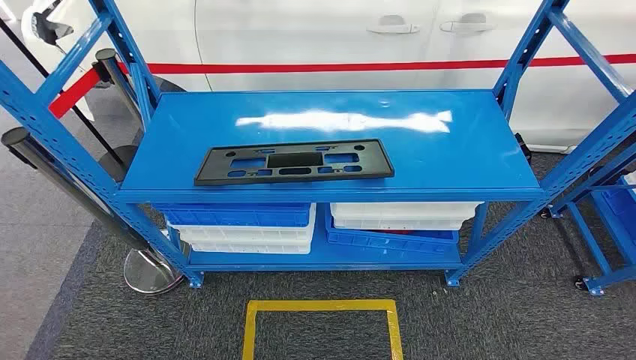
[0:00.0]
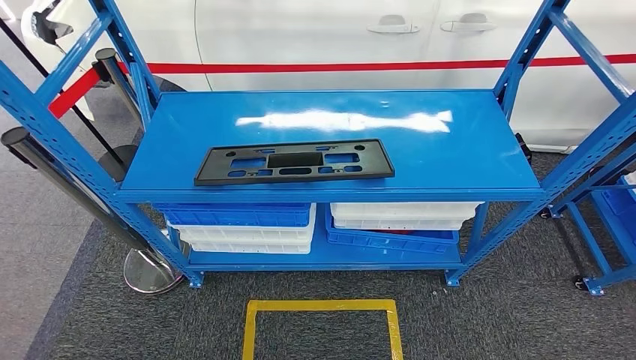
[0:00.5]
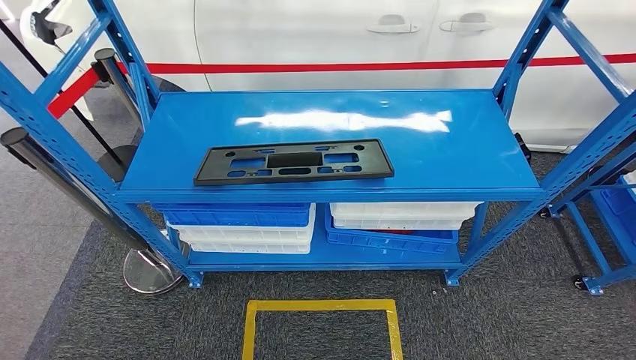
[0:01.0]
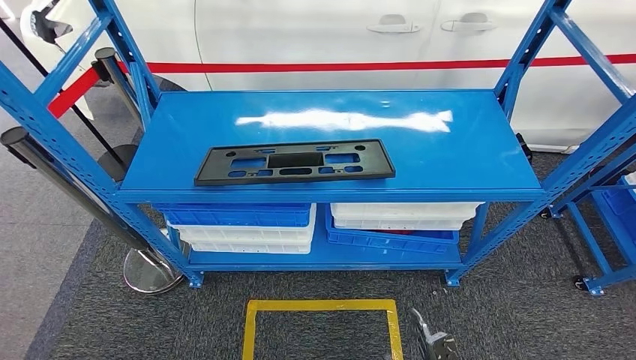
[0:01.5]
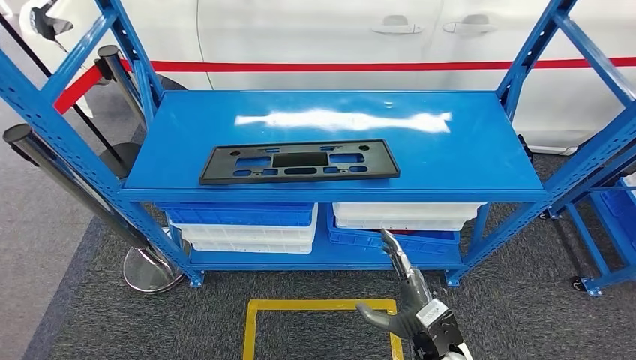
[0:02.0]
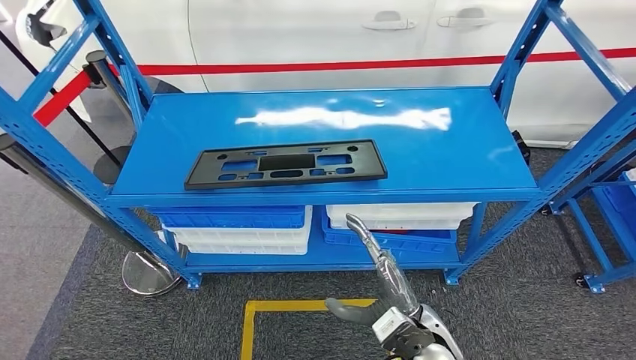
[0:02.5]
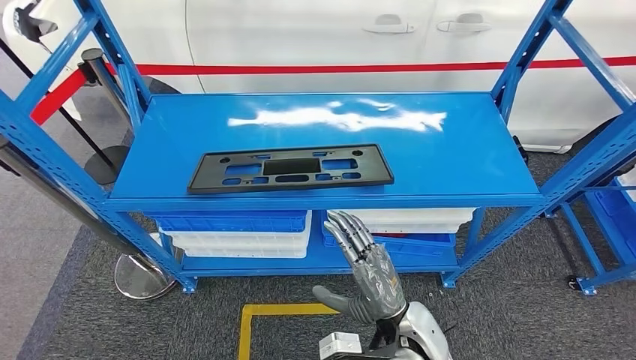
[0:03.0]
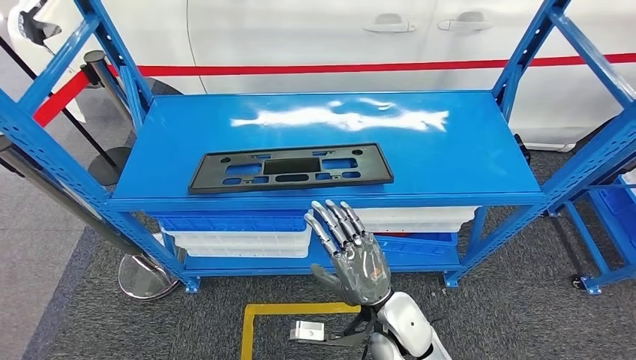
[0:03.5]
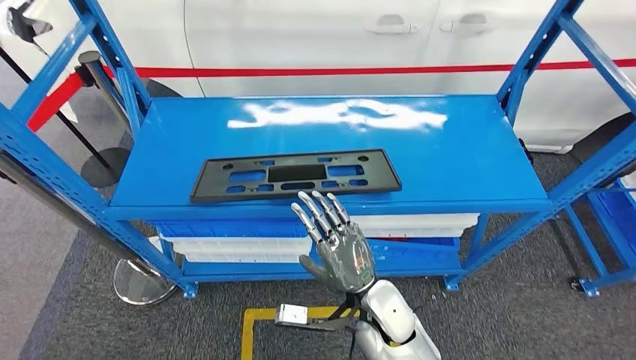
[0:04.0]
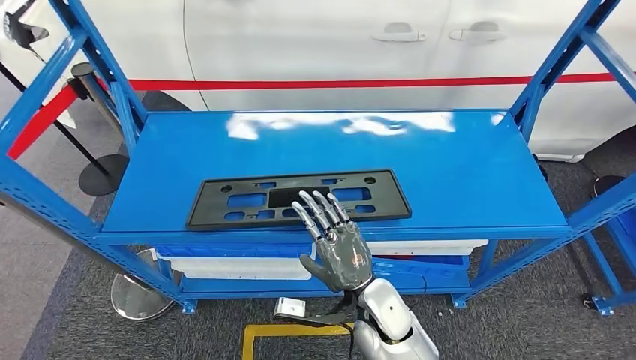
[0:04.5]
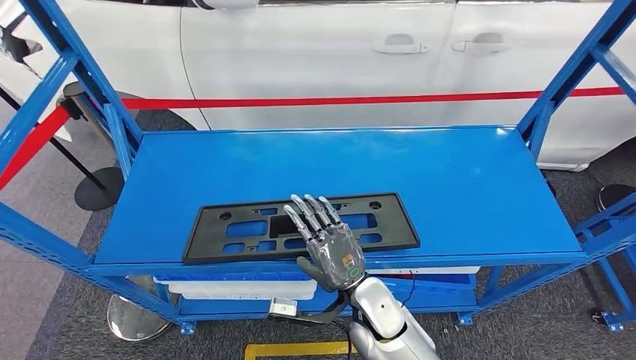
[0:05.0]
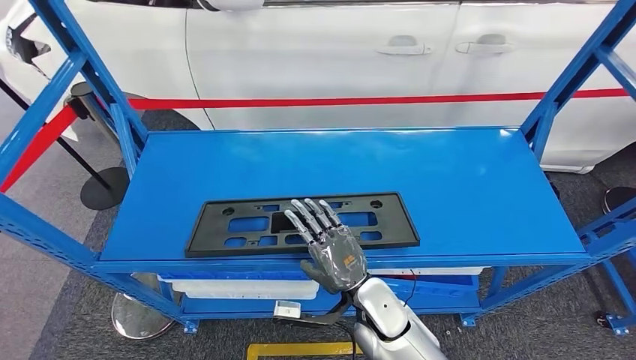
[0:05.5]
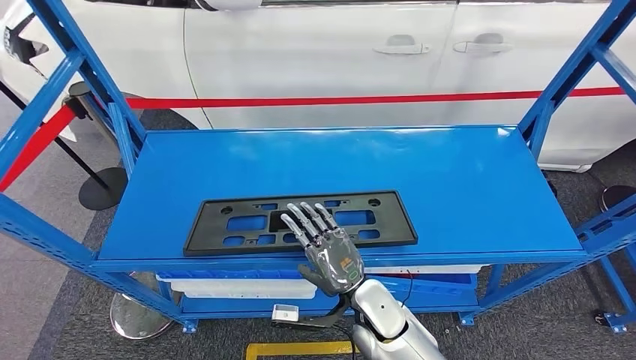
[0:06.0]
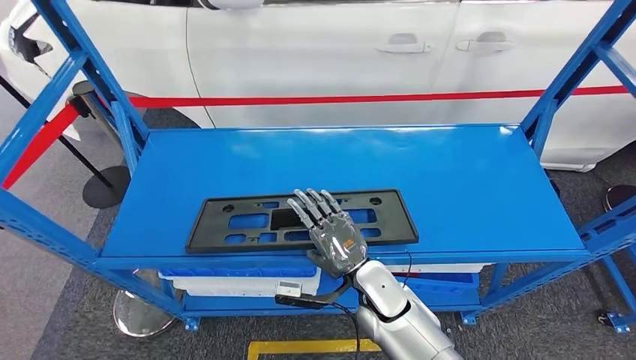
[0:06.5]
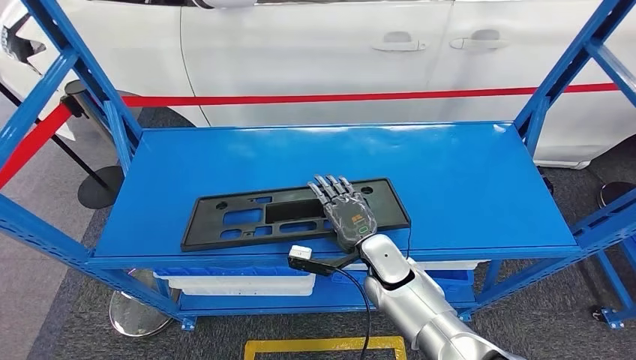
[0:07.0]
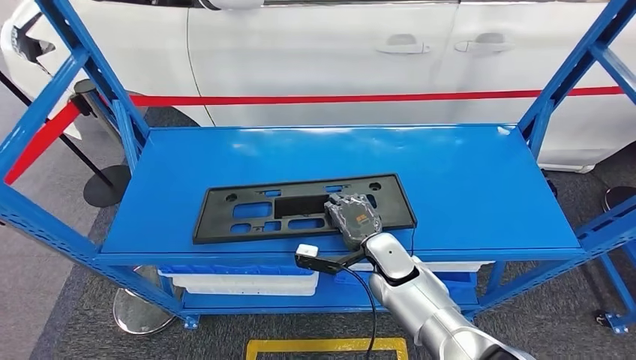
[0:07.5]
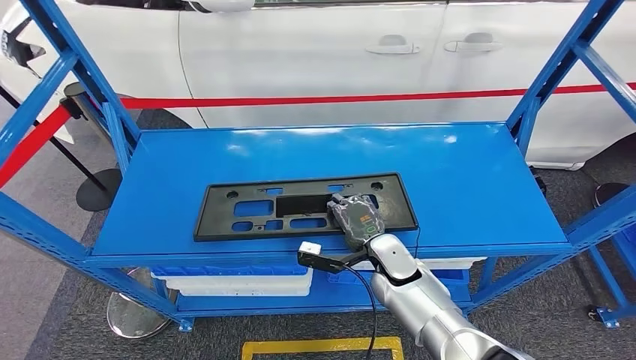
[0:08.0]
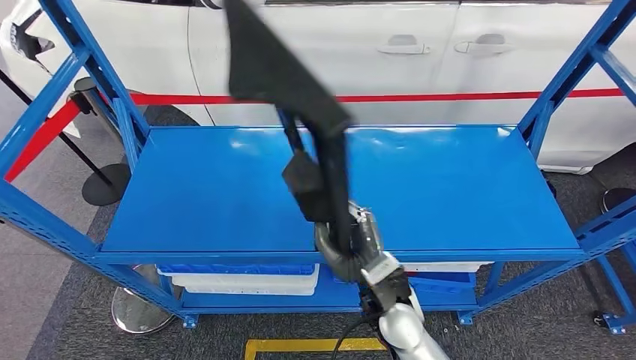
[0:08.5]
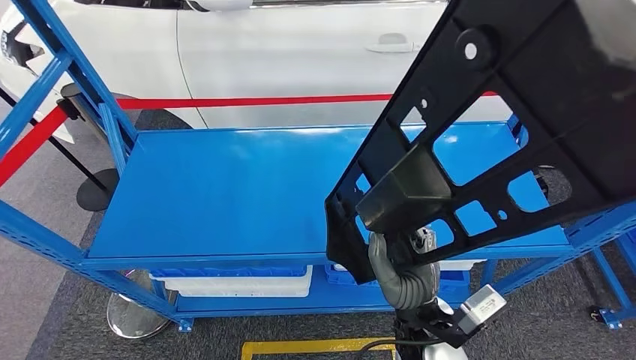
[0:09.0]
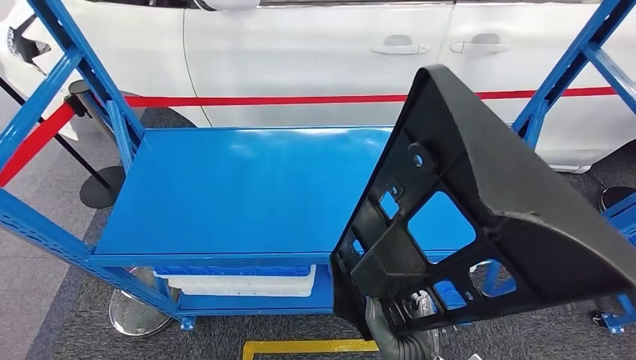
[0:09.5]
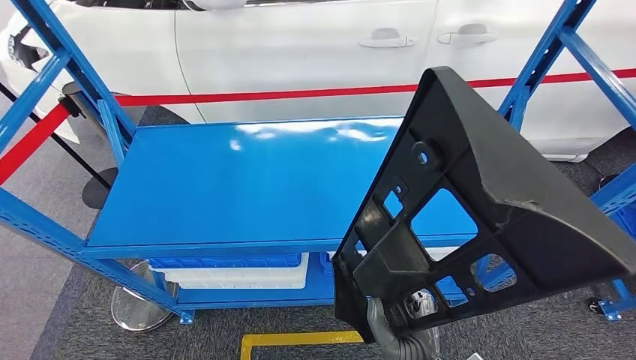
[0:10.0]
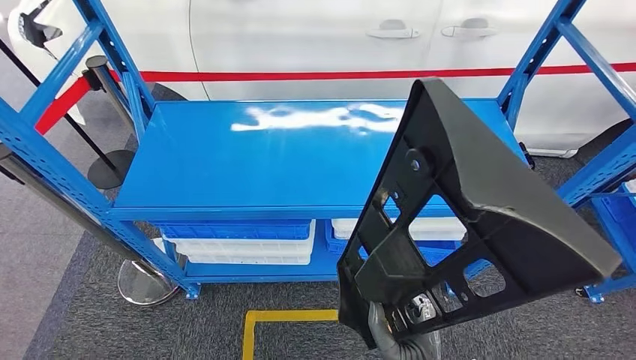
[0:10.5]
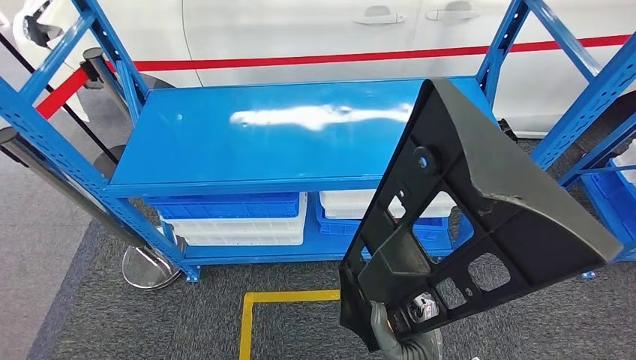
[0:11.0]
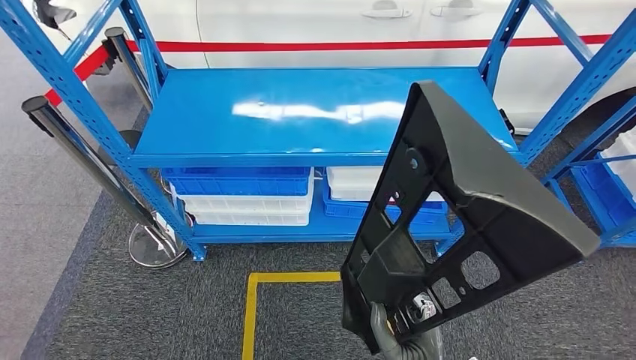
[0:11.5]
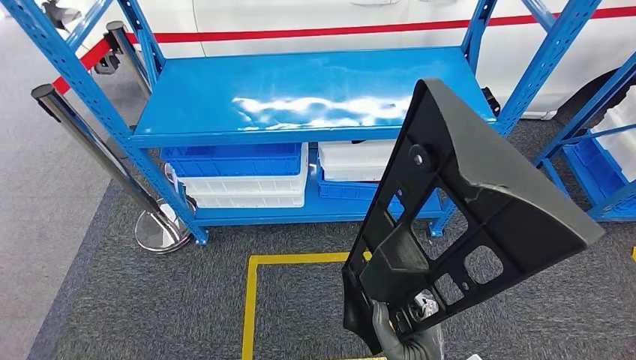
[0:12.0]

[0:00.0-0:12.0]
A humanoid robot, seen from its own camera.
Step, 0:00.0 to 0:09.5: Pick up the large material from the shelf.

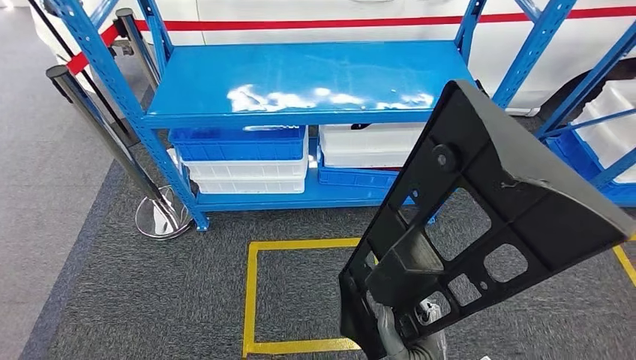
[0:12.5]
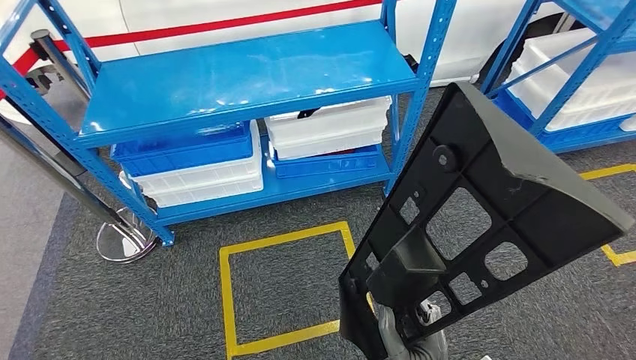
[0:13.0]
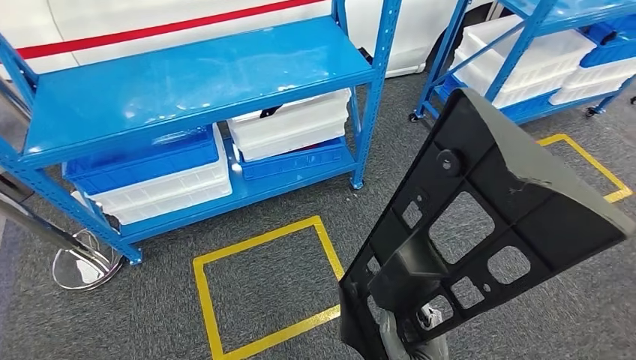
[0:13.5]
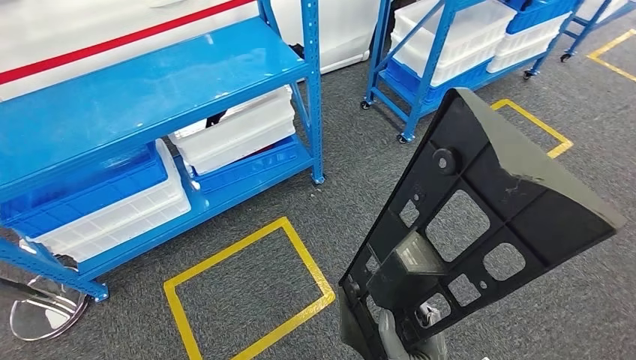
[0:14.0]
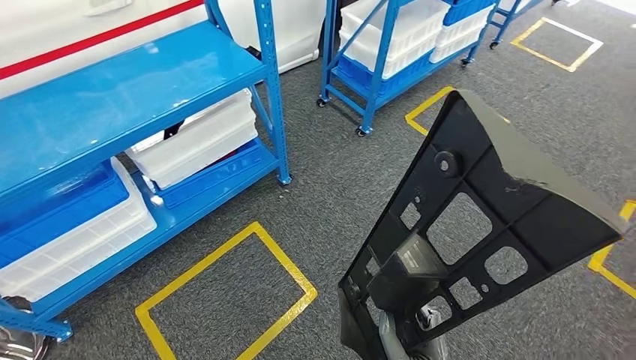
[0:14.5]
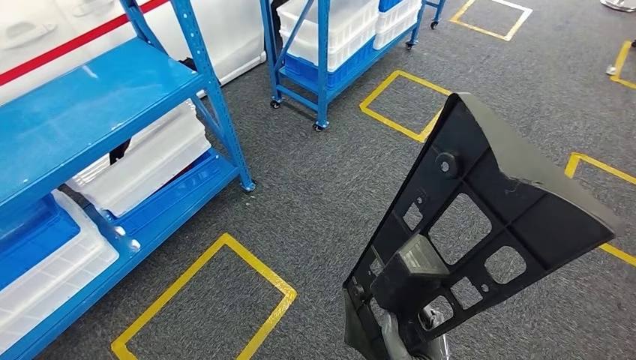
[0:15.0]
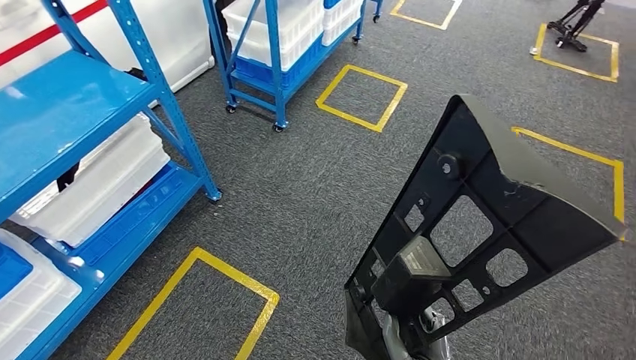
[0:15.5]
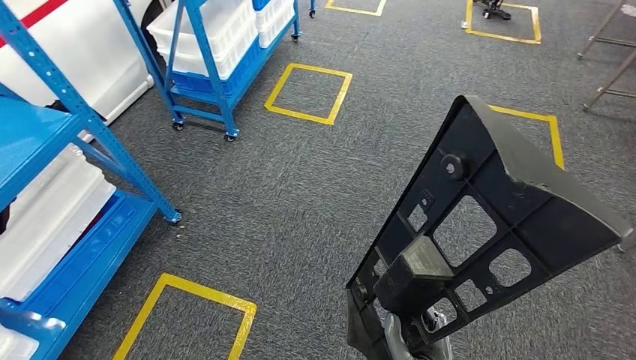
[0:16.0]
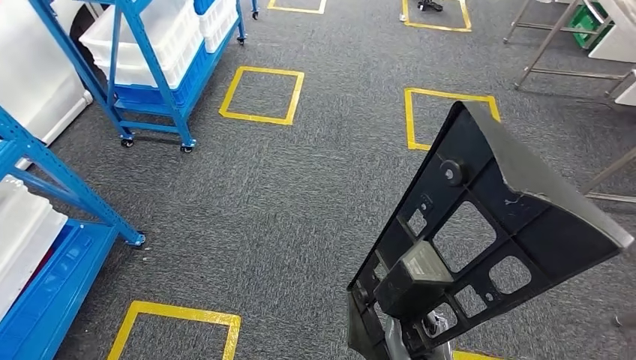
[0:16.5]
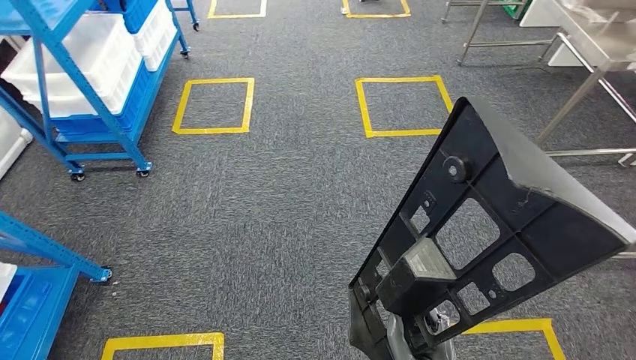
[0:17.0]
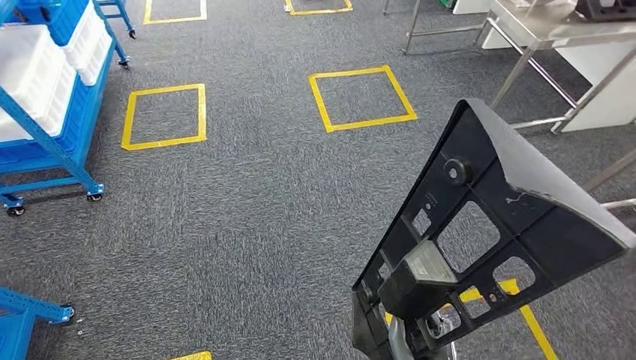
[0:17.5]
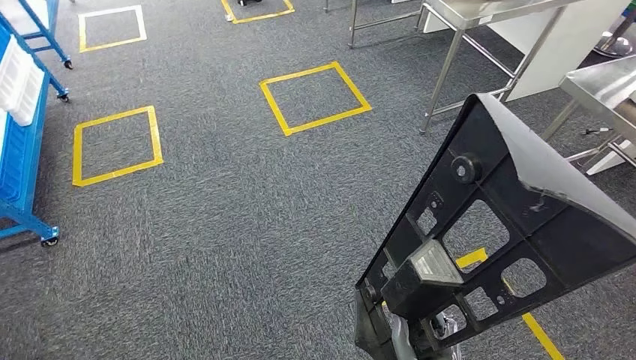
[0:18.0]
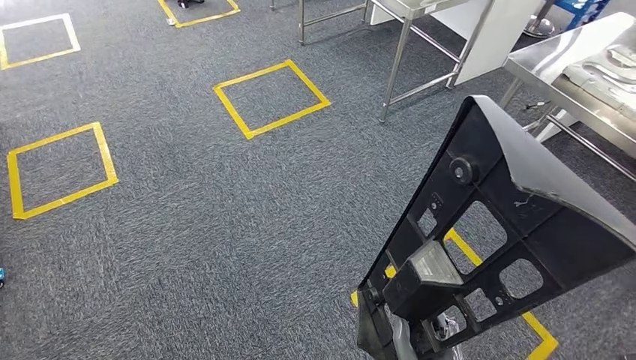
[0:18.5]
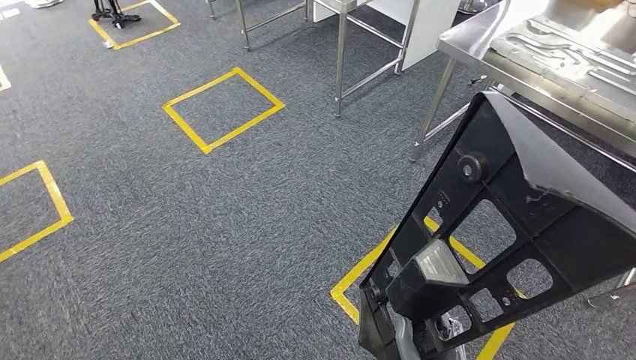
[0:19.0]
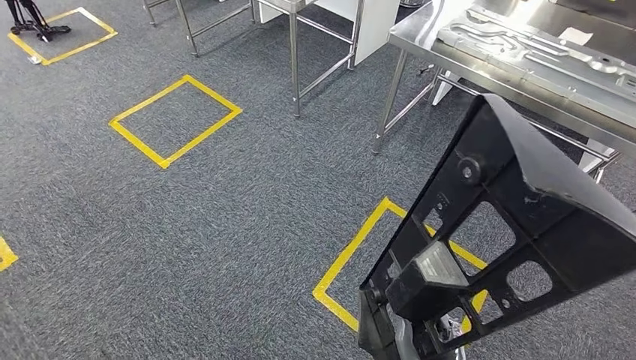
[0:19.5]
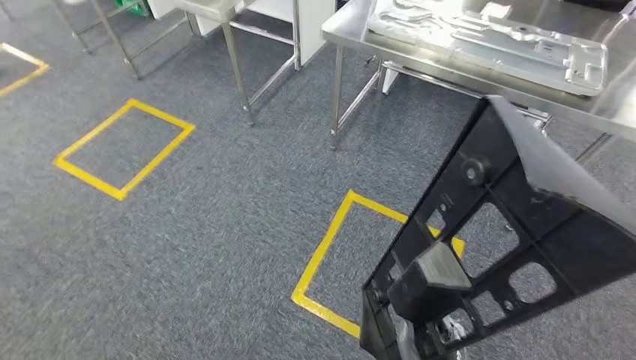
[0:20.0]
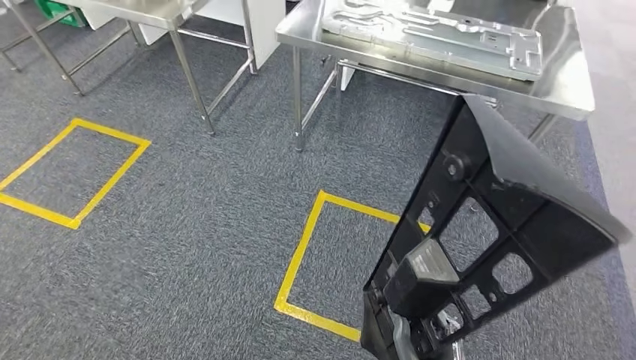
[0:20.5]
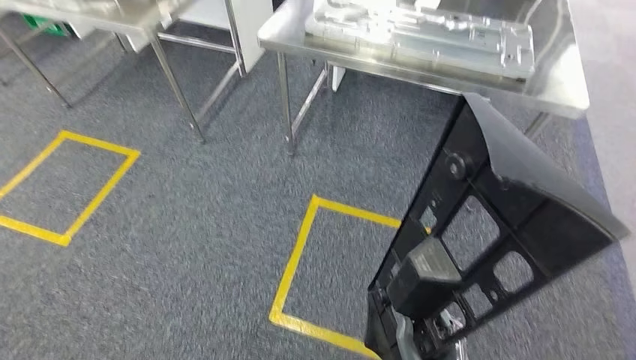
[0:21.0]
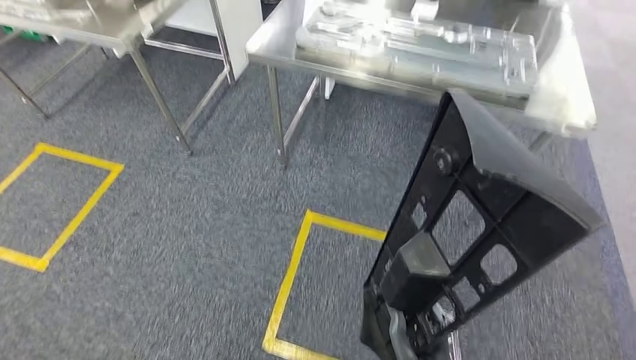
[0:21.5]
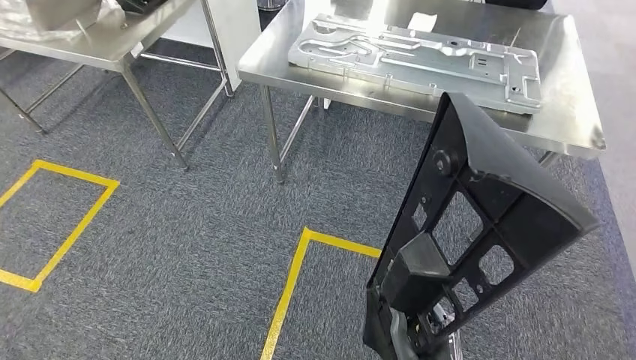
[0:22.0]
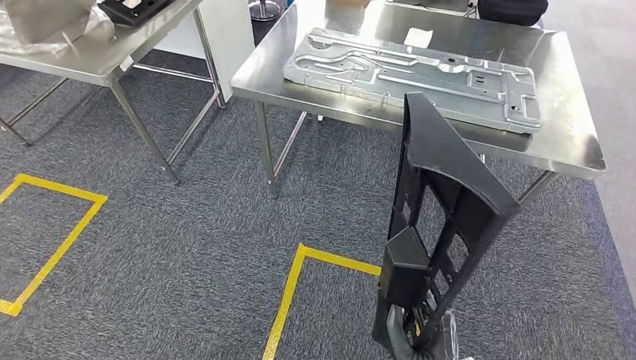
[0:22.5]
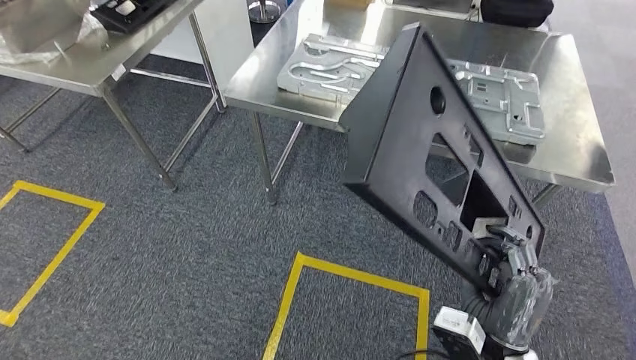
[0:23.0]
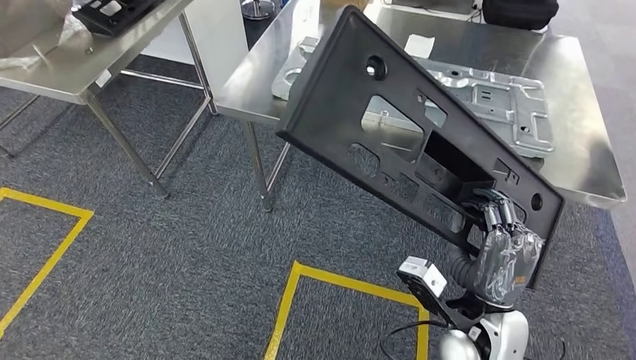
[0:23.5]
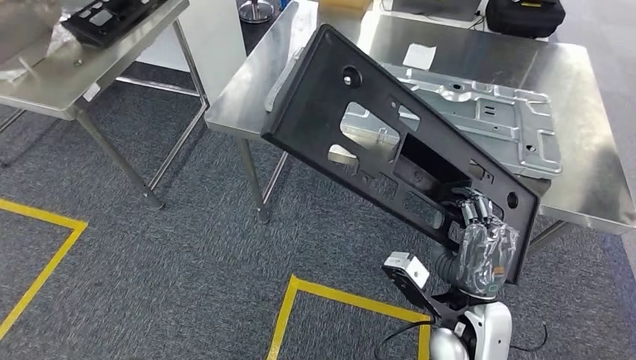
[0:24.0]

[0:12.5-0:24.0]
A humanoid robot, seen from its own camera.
Step, 0:12.5 to 0:23.5: Move the large material to the workbench.
